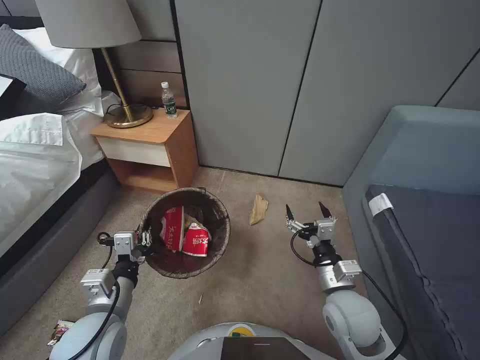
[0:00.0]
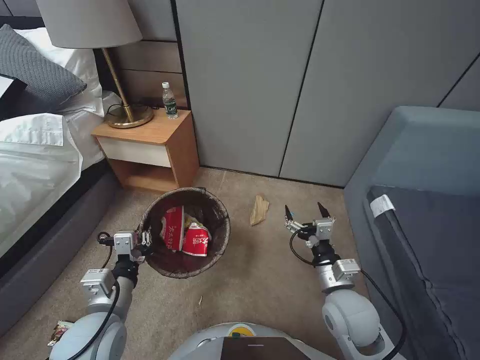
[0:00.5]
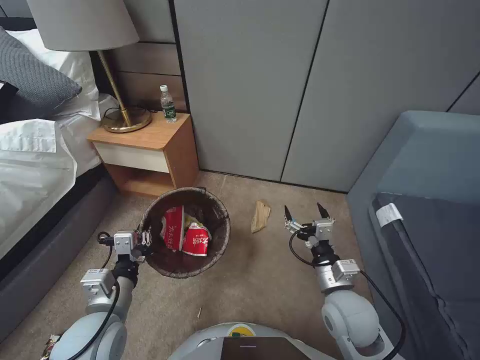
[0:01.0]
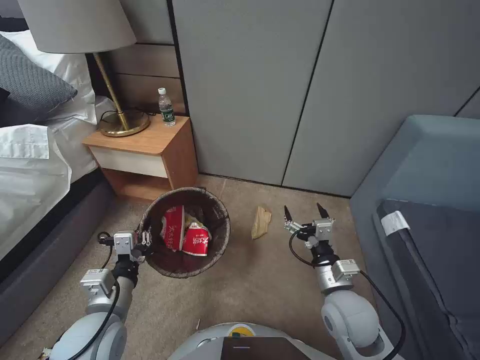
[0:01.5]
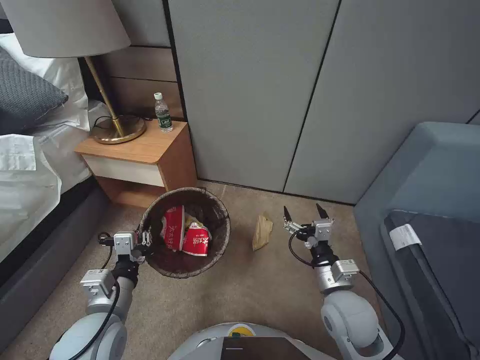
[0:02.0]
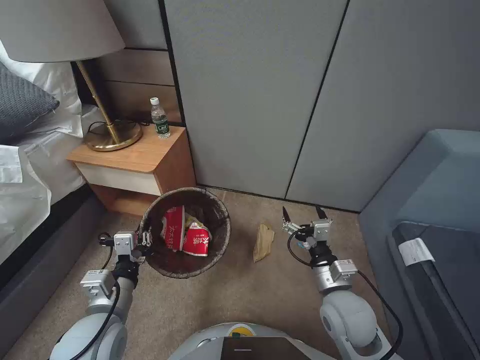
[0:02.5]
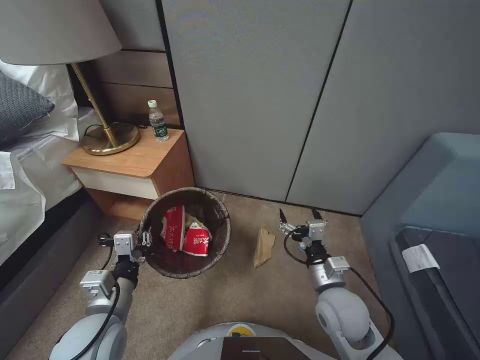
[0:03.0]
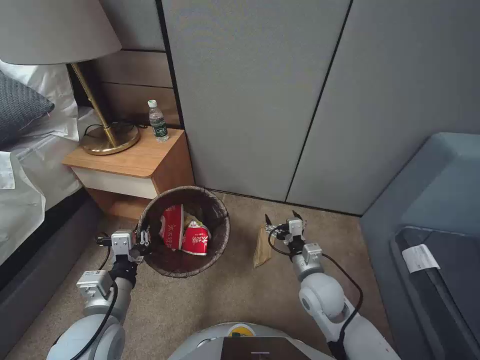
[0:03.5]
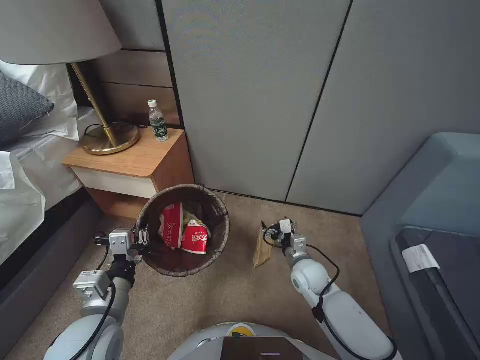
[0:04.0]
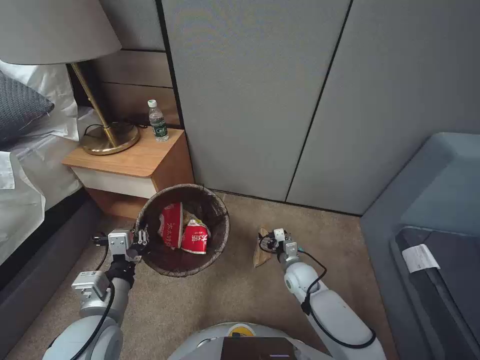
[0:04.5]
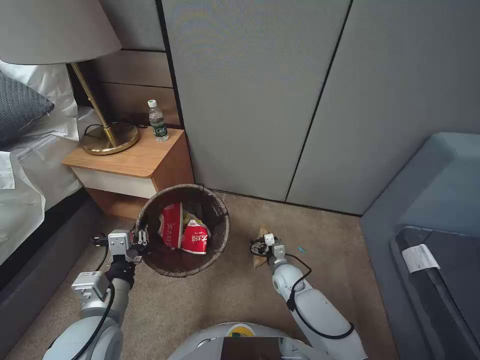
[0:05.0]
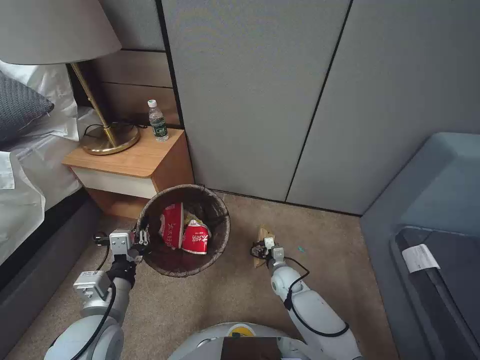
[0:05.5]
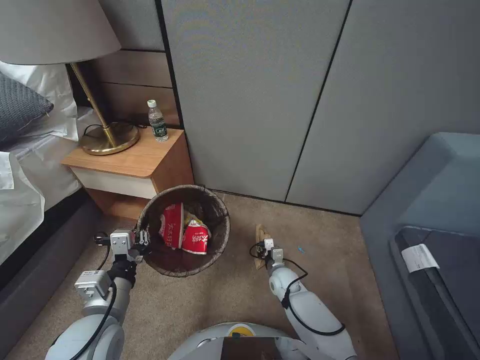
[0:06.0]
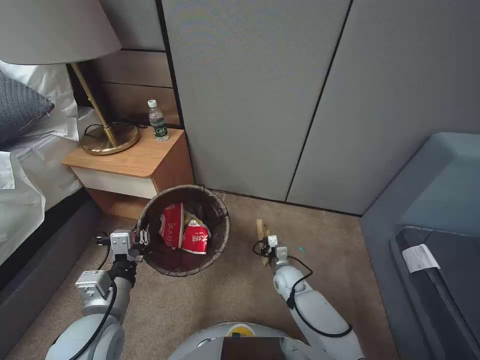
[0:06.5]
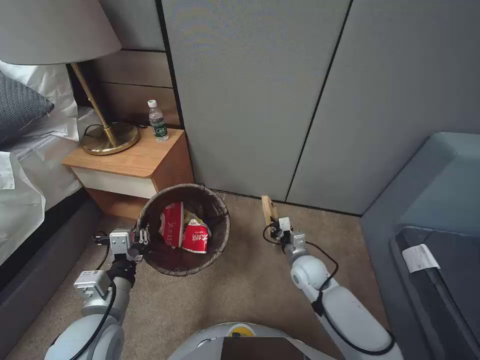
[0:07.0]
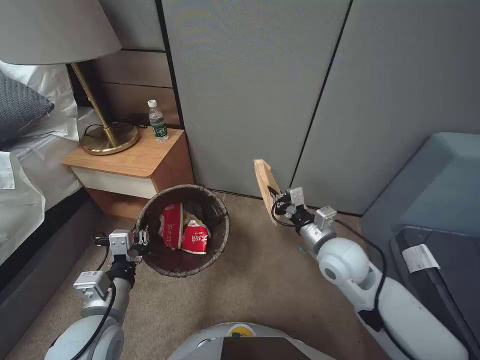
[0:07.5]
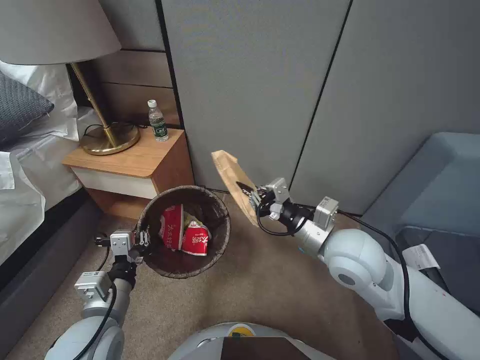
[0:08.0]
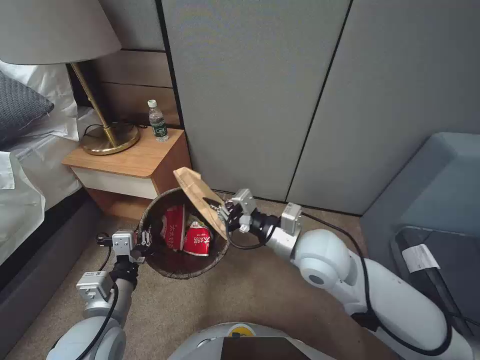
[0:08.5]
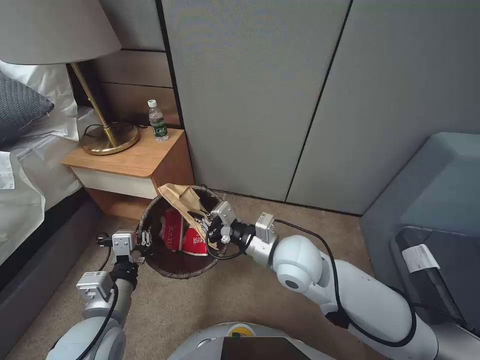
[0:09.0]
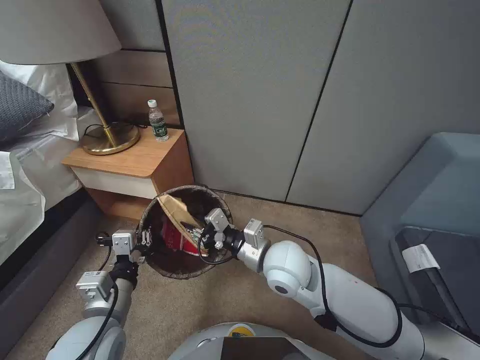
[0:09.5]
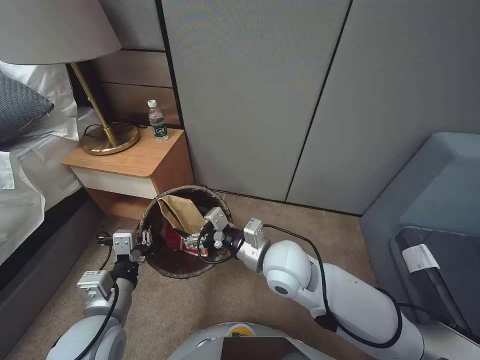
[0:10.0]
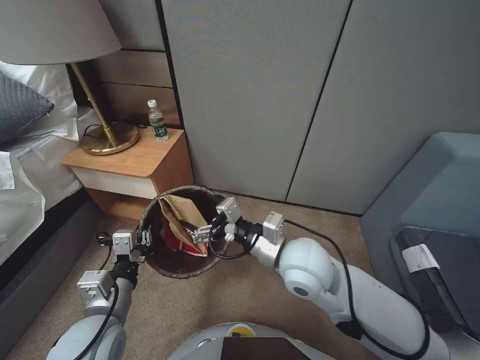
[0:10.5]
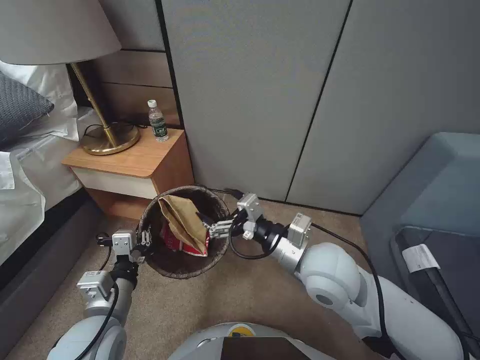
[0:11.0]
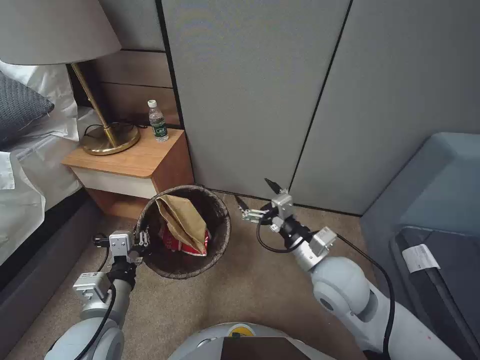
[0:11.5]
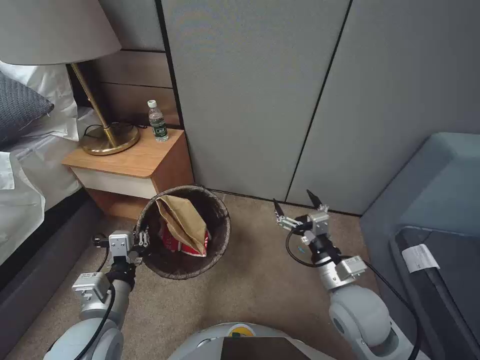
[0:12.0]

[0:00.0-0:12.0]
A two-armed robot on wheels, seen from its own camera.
Task of the whole recording: Pick up the trash bin, then pick up the garbage from the floor and place it into the trash bin.
0:00.0 to 0:02.0: Neither gripper changes place.
0:02.0 to 0:04.0: The right gripper goes about 15 cm forward and downward.
0:04.0 to 0:06.0: The right gripper is displaced downward by approximately 15 cm, and closes up.
0:06.0 to 0:08.0: The right gripper travels upward by about 35 cm.
0:08.0 to 0:10.0: The right gripper shifts about 15 cm to the left and downward, and opens its fingers.
0:10.0 to 0:12.0: The right gripper moves to the right and backward, some 15 cm.

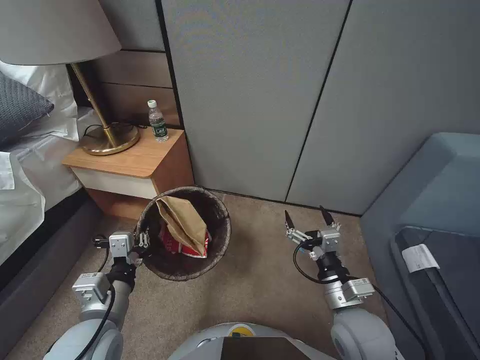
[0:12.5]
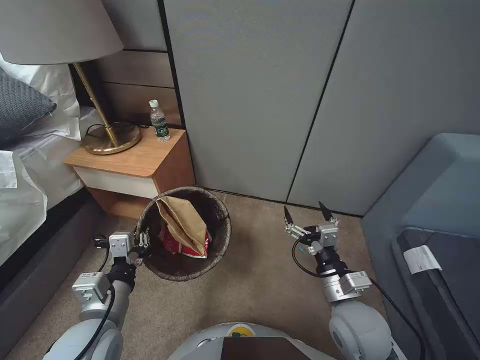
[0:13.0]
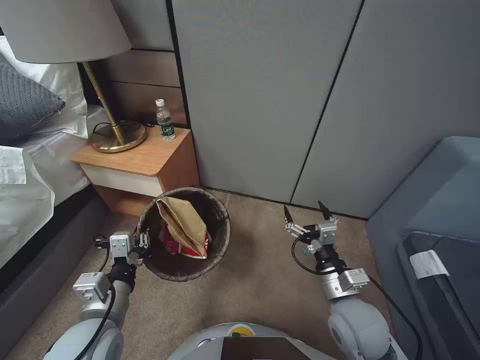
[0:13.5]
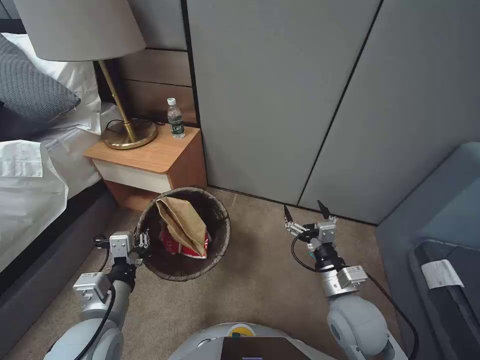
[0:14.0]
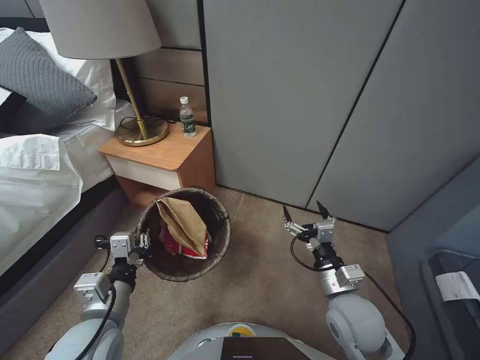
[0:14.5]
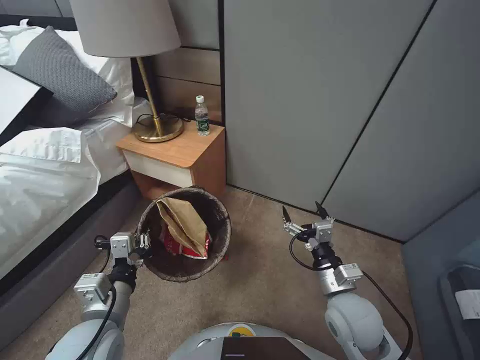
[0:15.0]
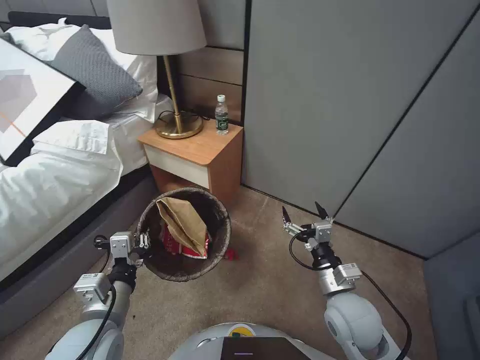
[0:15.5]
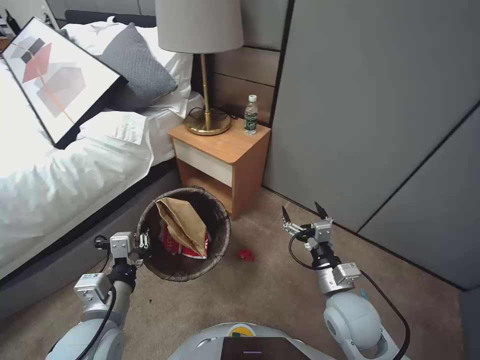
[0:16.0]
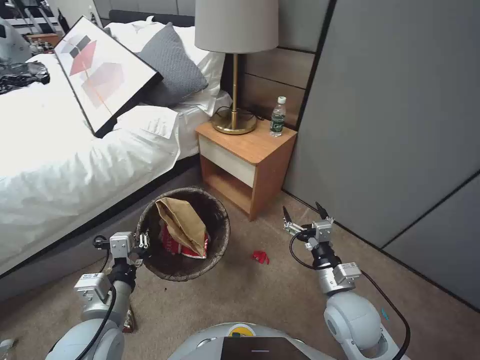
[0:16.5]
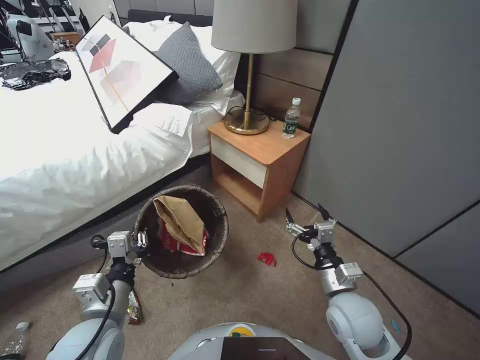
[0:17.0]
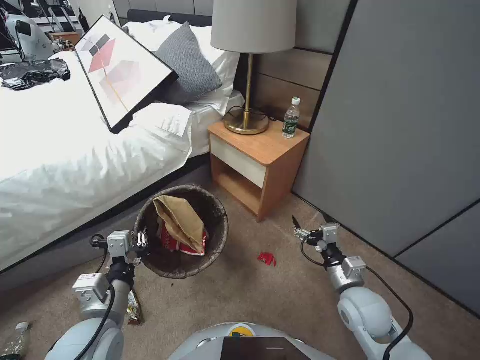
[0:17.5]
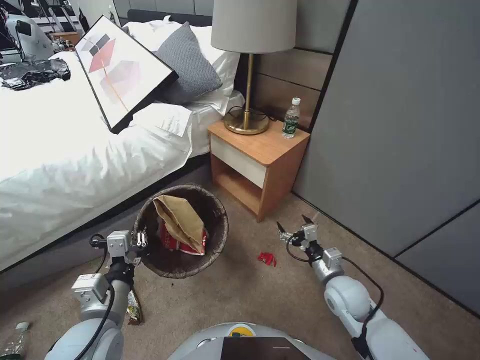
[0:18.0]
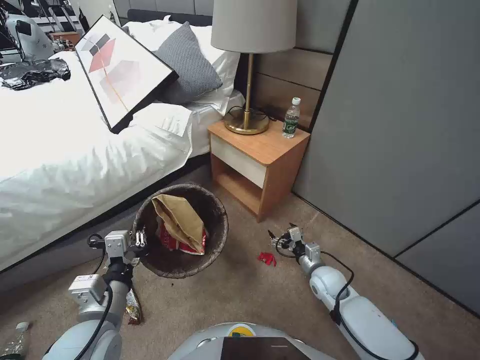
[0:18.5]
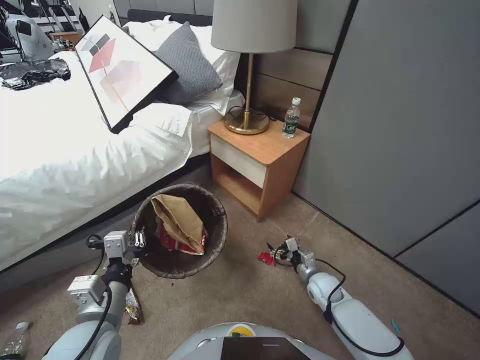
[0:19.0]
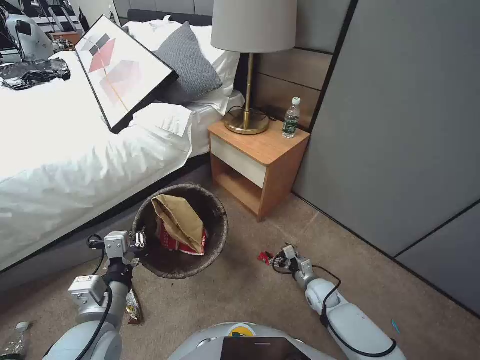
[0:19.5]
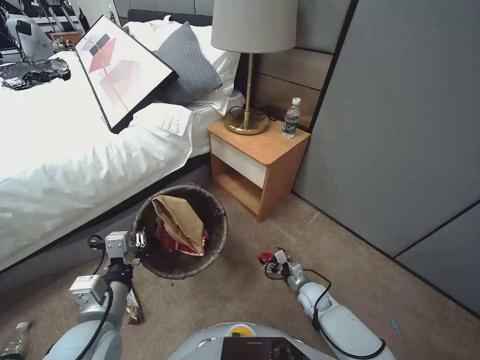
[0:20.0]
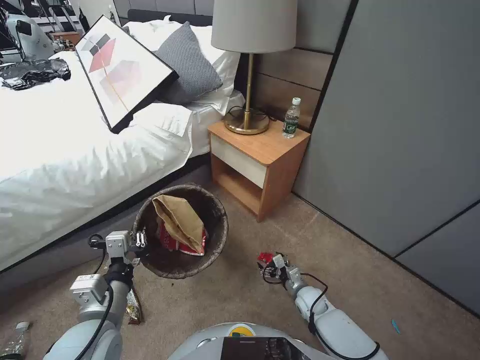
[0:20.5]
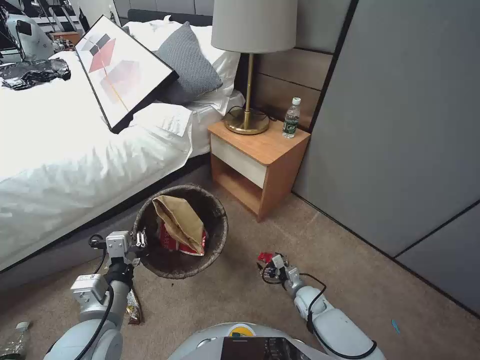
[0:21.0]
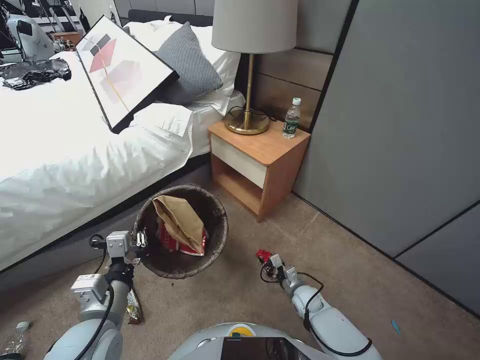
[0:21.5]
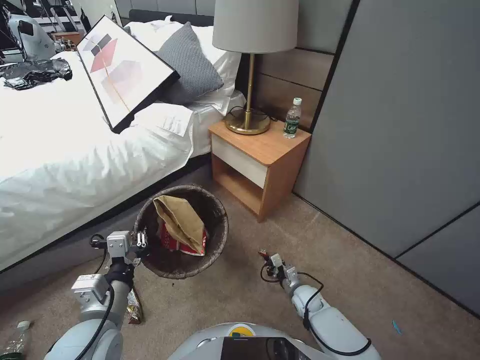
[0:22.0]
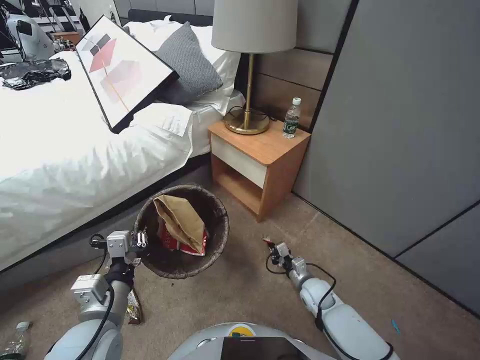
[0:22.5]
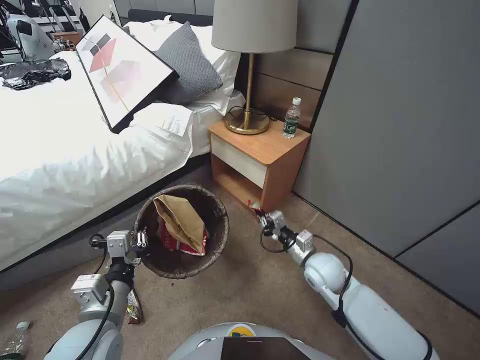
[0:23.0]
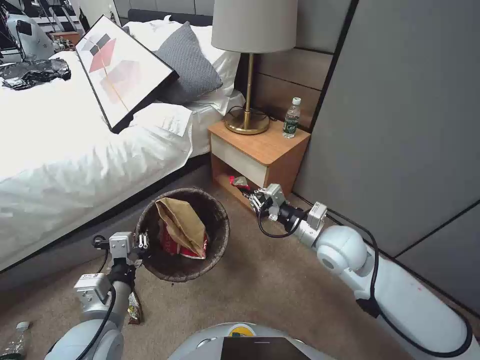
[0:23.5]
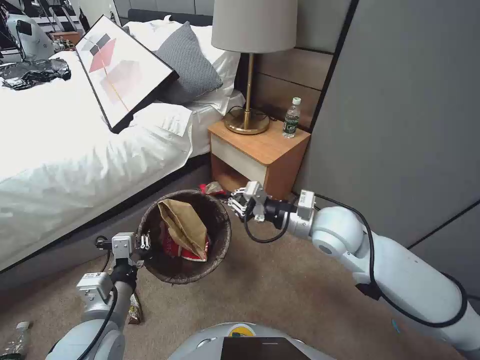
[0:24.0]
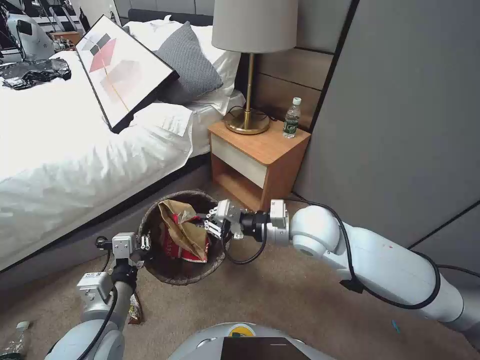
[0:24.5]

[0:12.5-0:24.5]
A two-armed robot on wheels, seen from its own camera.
Task of the whole recording: Pick up the trash bin, then pick up the garbage from the floor and place it into the trash bin.
0:16.5 to 0:18.5: The right gripper is displaced downward and forward by approximately 15 cm.
0:18.5 to 0:20.5: The right gripper is displaced downward by roughly 10 cm.
0:20.5 to 0:22.5: The right gripper closes up.
0:22.5 to 0:24.5: The right gripper heads upward, covering some 35 cm.

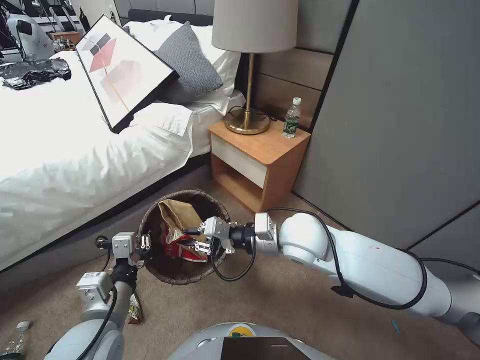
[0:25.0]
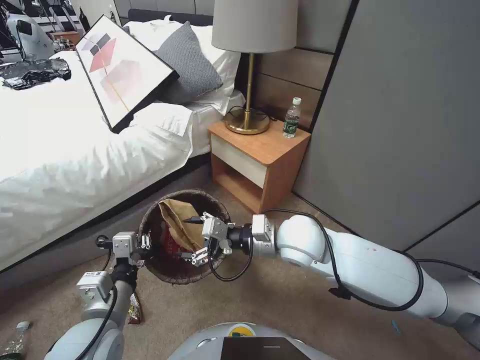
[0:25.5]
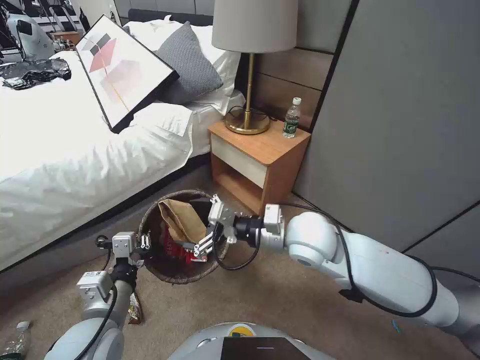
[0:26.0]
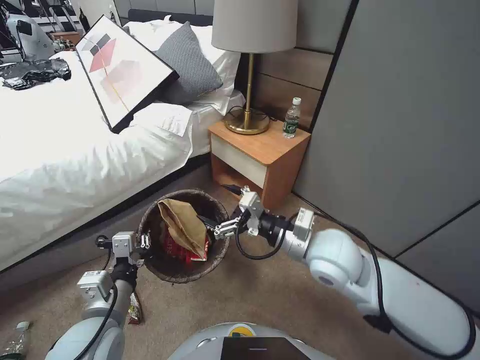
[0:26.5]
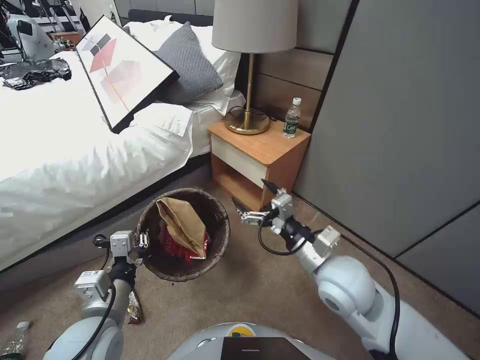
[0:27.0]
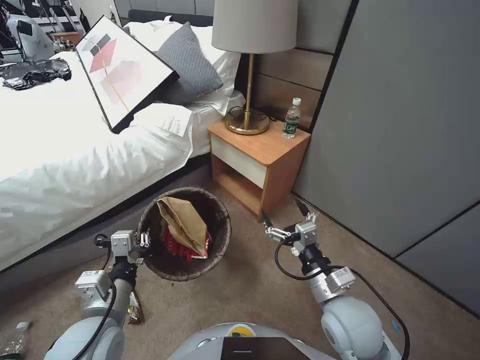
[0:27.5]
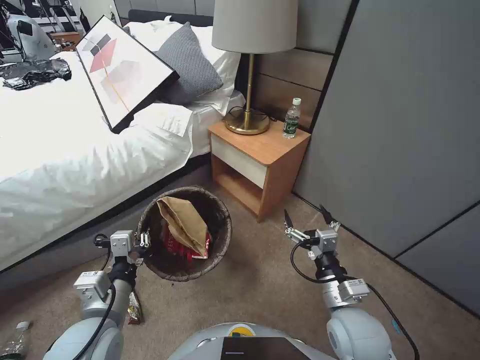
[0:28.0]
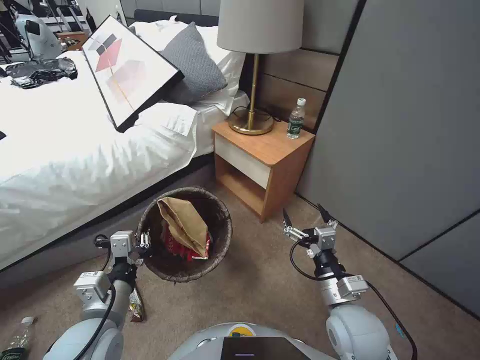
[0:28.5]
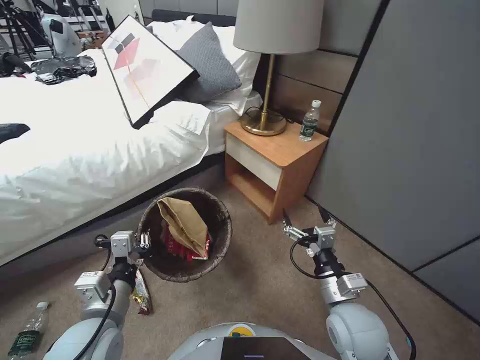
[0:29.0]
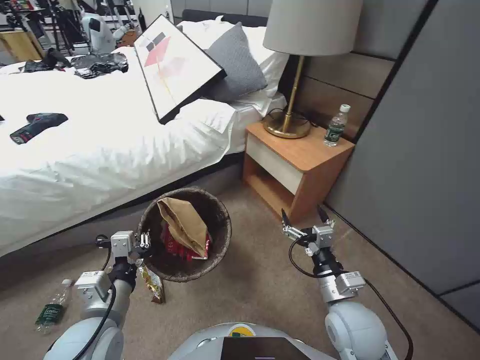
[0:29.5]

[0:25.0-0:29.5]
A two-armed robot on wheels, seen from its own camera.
Task of the whole recording: Pick up the trash bin, then pick up the garbage from the floor and place it into the trash bin.
0:25.0 to 0:27.0: The right gripper moves backward and to the right, approximately 10 cm, and opens its fingers.
0:27.0 to 0:29.5: The right gripper heads downward and backward, covering some 10 cm.